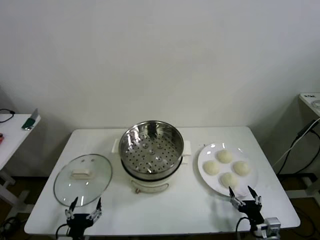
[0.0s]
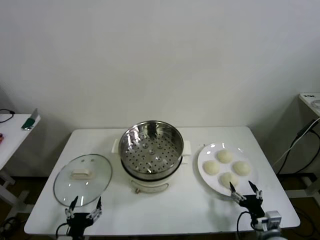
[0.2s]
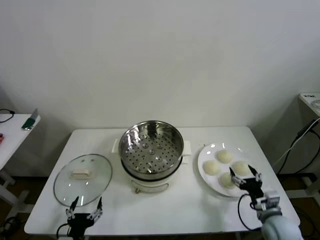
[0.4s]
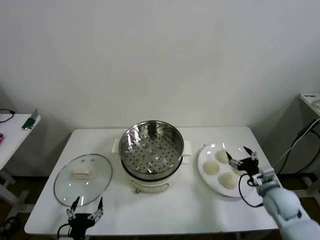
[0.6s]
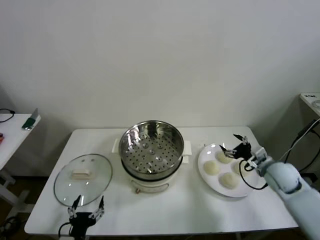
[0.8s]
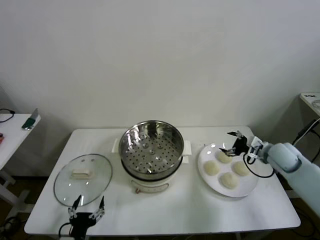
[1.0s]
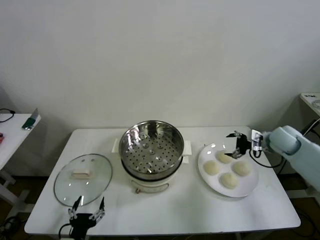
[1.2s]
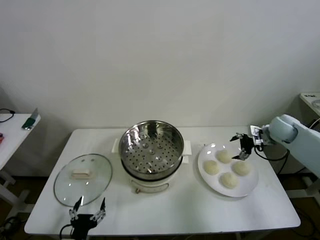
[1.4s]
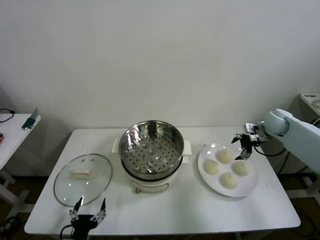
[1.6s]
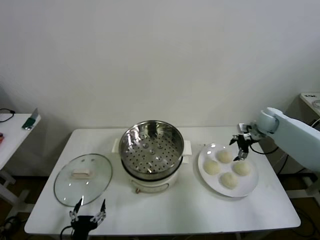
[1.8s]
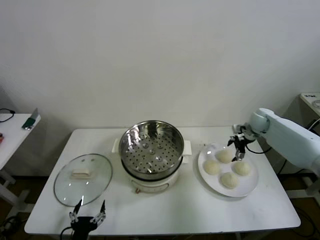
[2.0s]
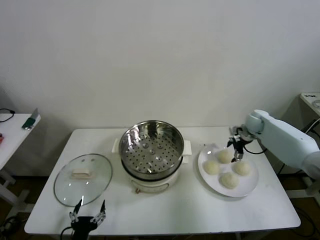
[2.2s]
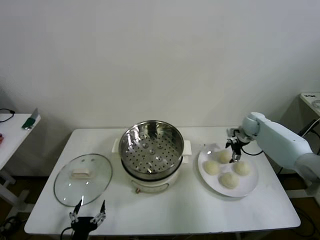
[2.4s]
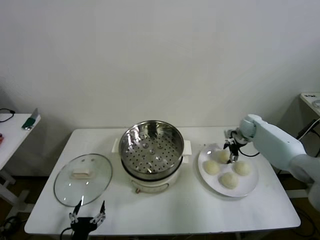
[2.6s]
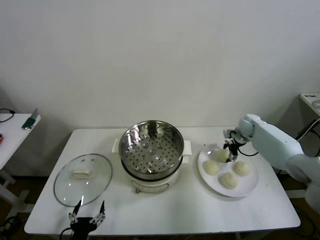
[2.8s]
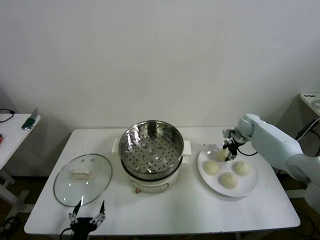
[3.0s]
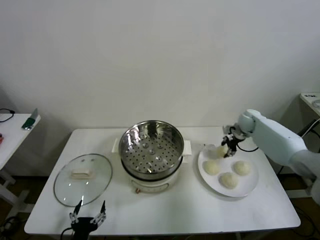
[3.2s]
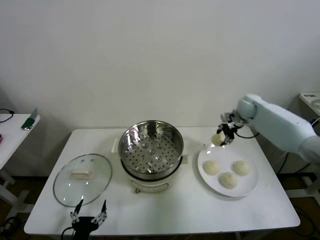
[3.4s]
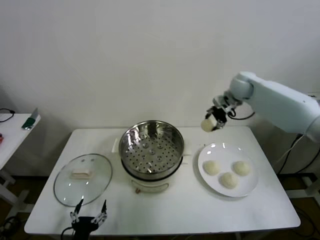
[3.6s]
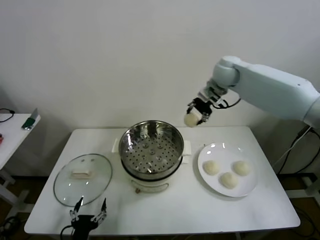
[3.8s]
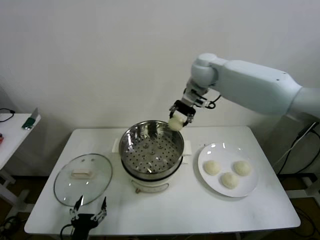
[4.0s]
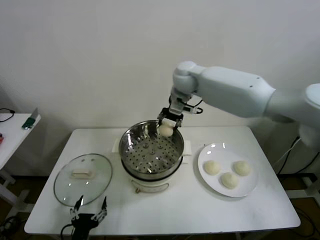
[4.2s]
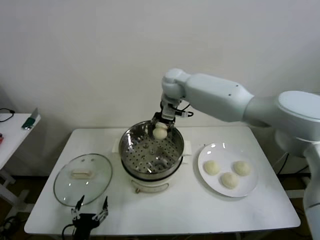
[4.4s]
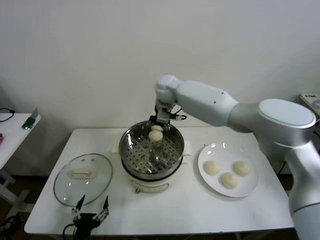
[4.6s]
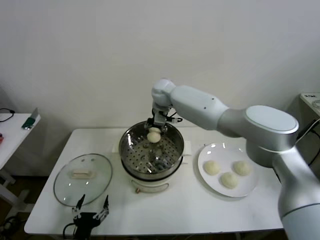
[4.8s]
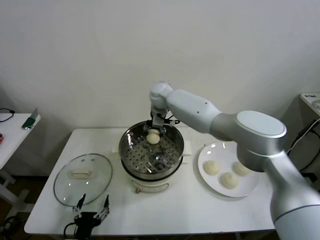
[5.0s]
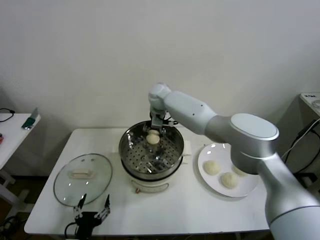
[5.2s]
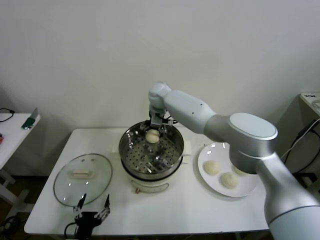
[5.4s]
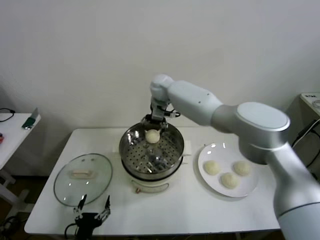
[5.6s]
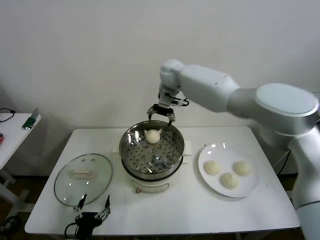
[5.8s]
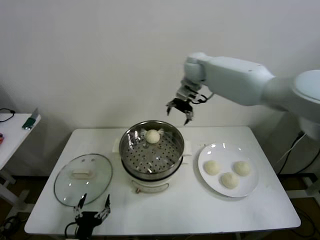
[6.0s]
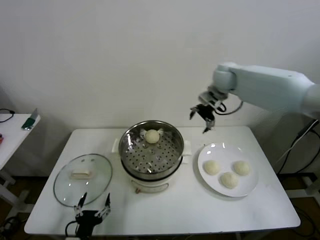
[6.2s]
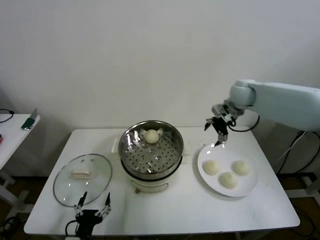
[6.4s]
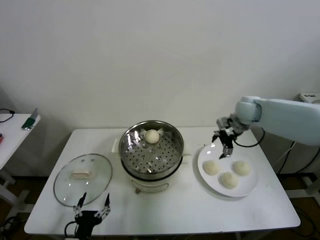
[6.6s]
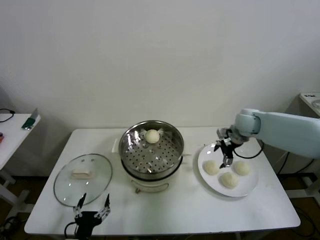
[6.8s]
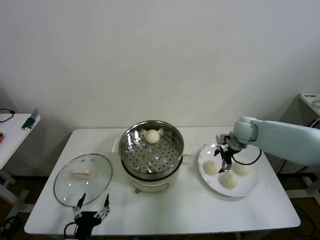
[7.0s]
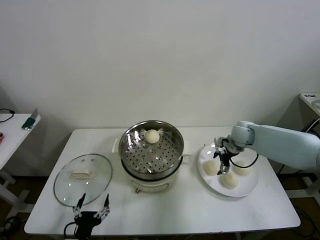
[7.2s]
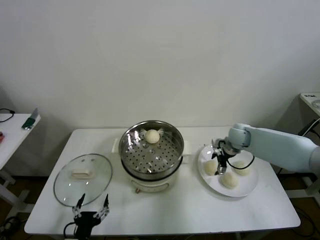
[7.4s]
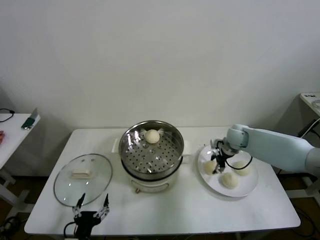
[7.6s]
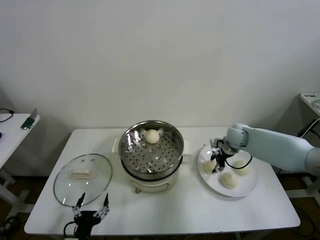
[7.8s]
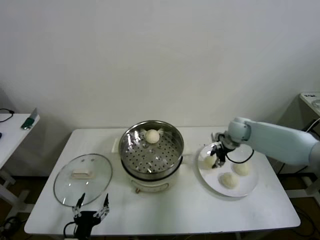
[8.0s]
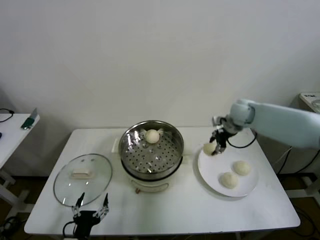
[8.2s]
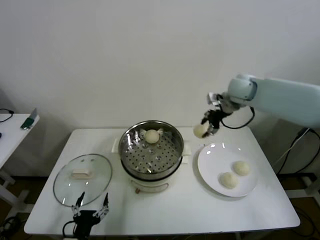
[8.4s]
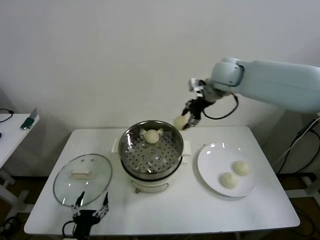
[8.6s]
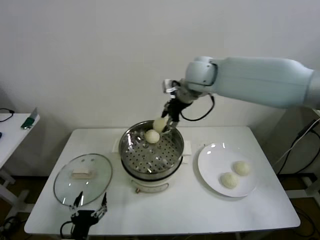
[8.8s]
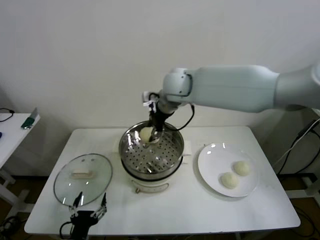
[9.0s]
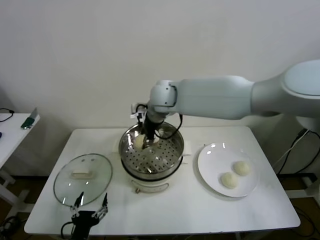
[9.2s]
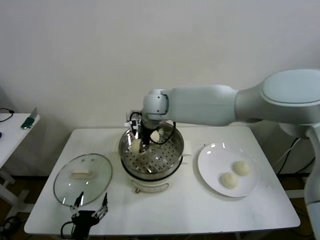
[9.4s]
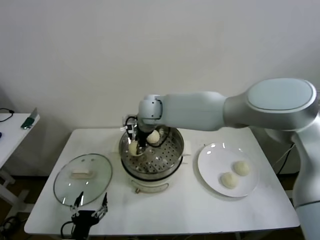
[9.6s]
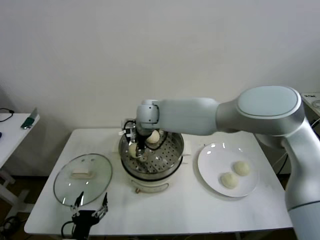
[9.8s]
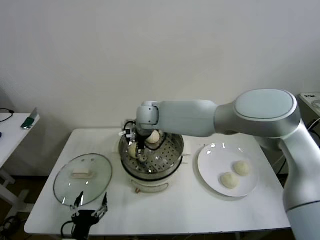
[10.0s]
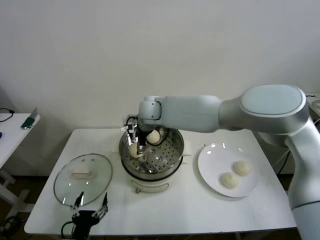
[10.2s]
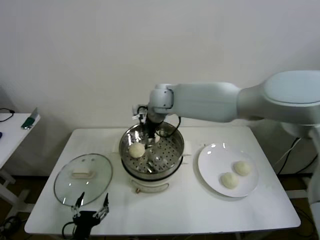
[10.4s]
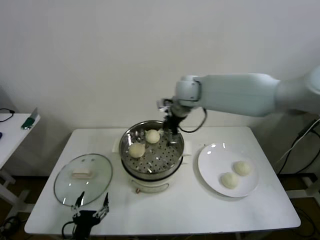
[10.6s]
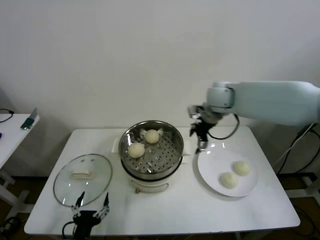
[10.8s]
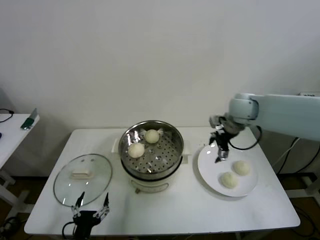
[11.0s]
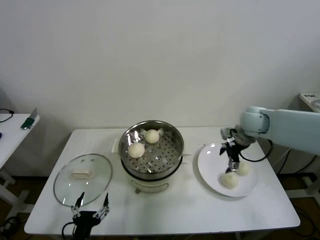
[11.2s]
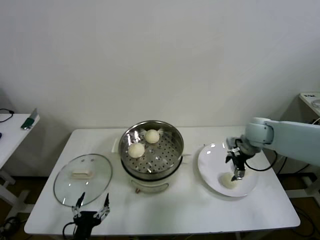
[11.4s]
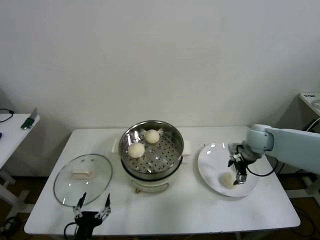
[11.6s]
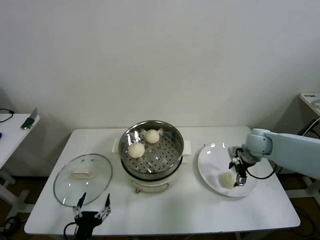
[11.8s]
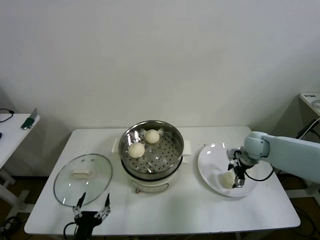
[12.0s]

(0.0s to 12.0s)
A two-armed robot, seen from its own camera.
Step, 0.0s - 2.8s: Grasp the baozi in the plate with right gripper.
Step, 3.0s - 5.2s: Place the baozi on the steamer with right gripper.
Step, 5.6s - 7.6s: Grasp the baozi in the plate with right gripper.
Step, 7.8s - 10.0s: Place the baozi on the steamer with right gripper.
1.6s - 3.0s: The right gripper goes some 10 cm downward and forward, and closes its fingers.
3.0s - 4.4s: The right gripper goes approximately 40 cm to the left and upward.
4.4s - 6.0s: The right gripper heads to the right, covering approximately 15 cm, and opens up.
6.0s - 7.6s: The right gripper is displaced downward and to the right by approximately 25 cm, and closes its fingers.
7.6s - 9.0s: The right gripper heads to the left and upward, covering approximately 35 cm.
9.0s - 10.4s: The right gripper travels downward and back again, some 10 cm each way, and opens up.
10.4s - 12.0s: The right gripper heads to the right and downward, covering some 35 cm.

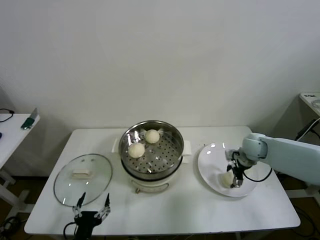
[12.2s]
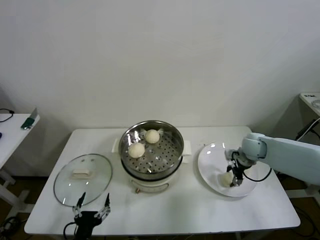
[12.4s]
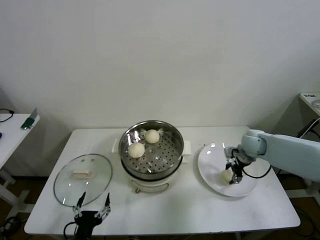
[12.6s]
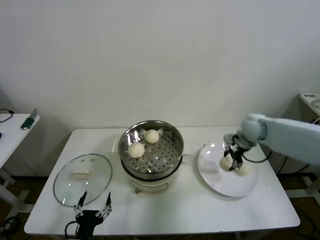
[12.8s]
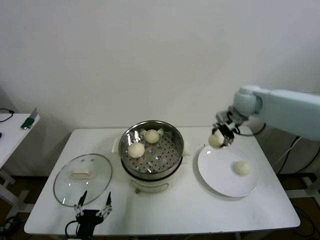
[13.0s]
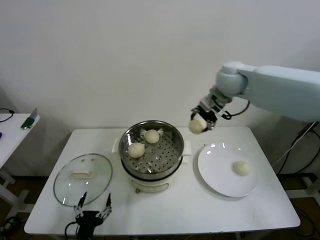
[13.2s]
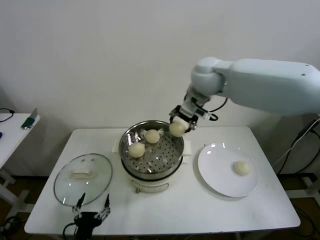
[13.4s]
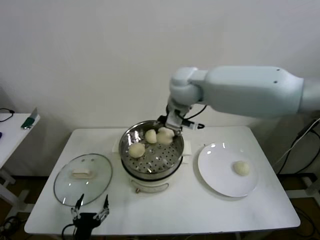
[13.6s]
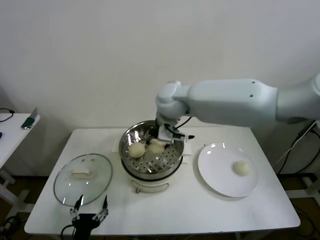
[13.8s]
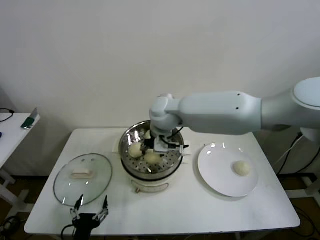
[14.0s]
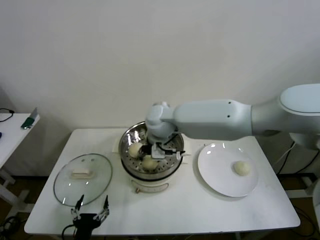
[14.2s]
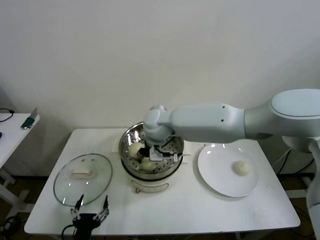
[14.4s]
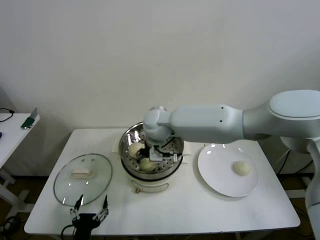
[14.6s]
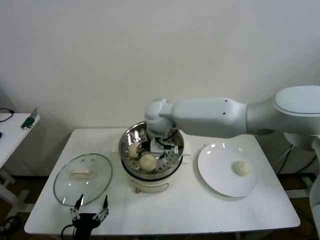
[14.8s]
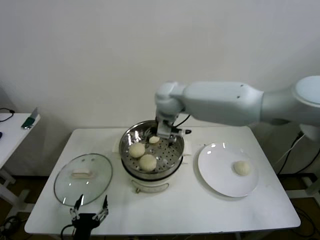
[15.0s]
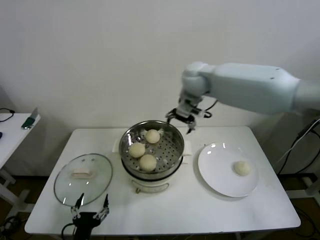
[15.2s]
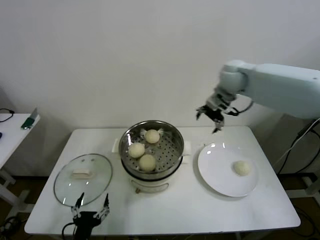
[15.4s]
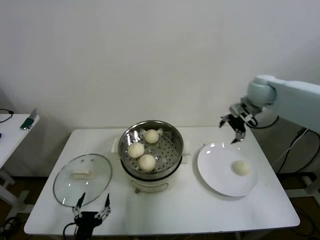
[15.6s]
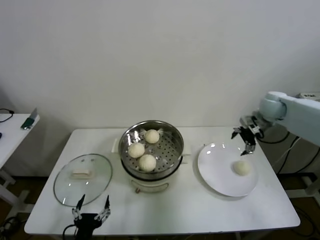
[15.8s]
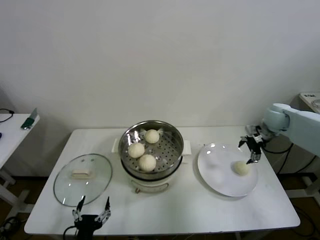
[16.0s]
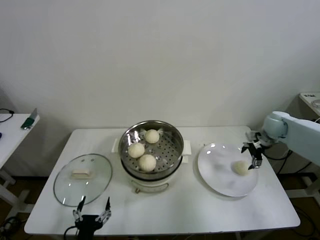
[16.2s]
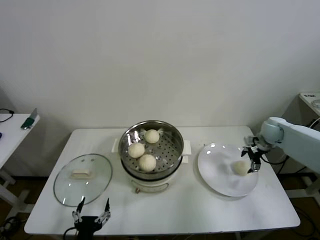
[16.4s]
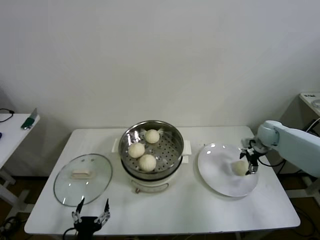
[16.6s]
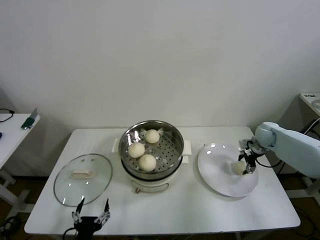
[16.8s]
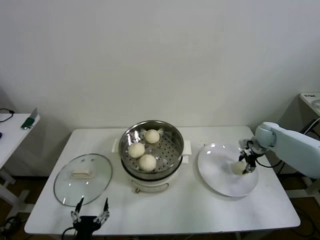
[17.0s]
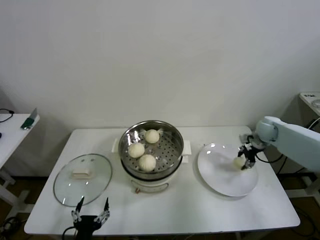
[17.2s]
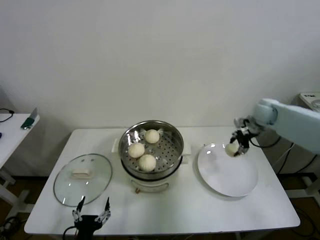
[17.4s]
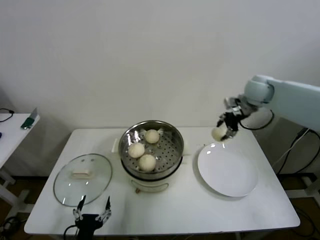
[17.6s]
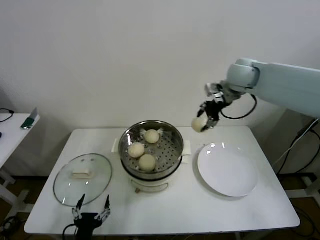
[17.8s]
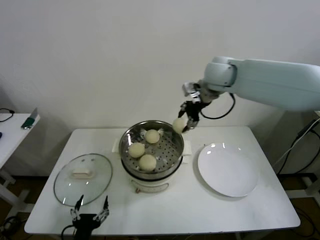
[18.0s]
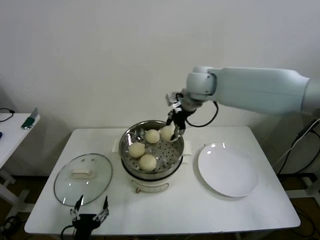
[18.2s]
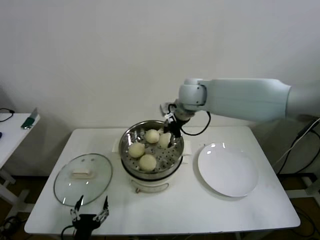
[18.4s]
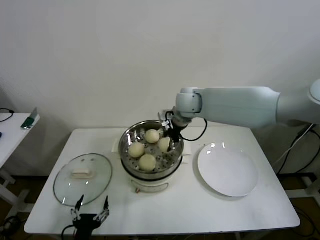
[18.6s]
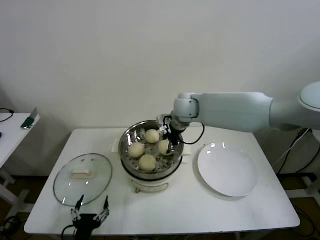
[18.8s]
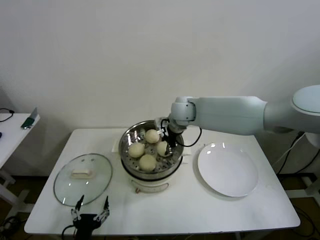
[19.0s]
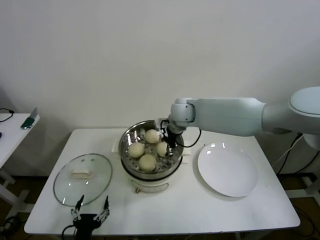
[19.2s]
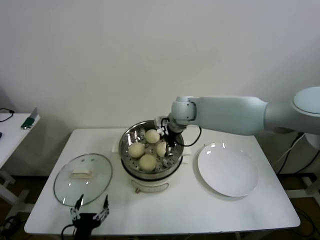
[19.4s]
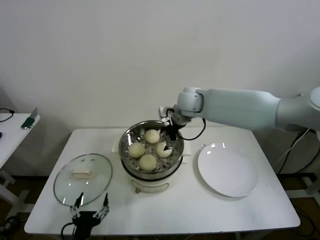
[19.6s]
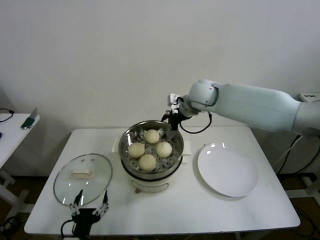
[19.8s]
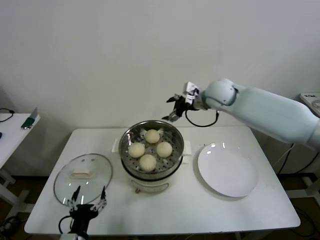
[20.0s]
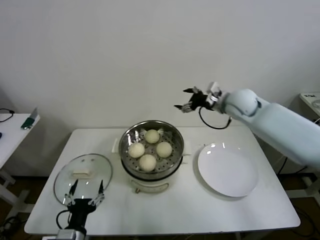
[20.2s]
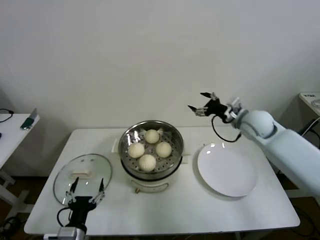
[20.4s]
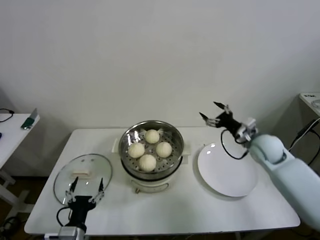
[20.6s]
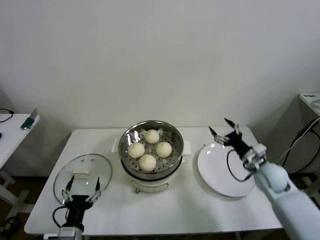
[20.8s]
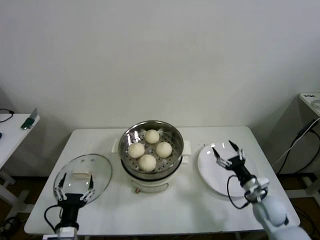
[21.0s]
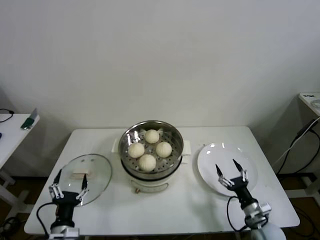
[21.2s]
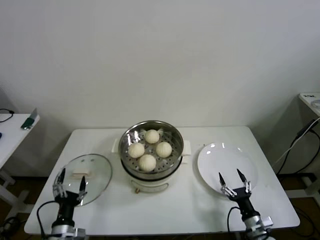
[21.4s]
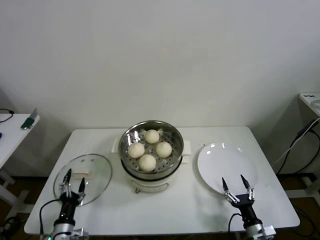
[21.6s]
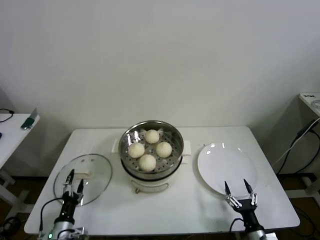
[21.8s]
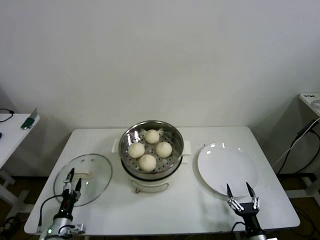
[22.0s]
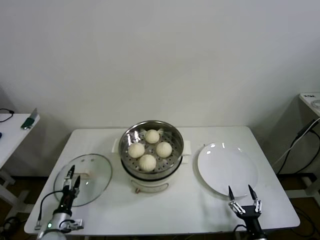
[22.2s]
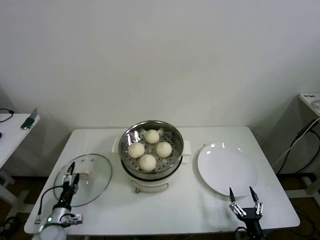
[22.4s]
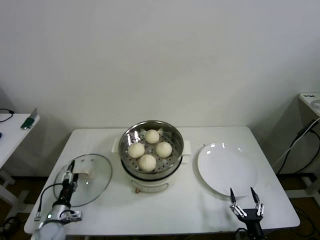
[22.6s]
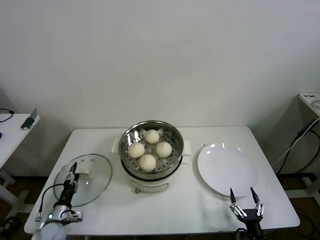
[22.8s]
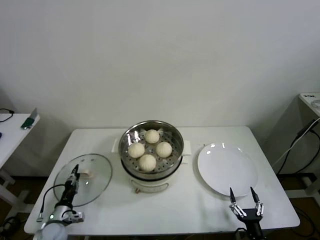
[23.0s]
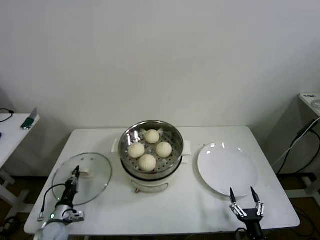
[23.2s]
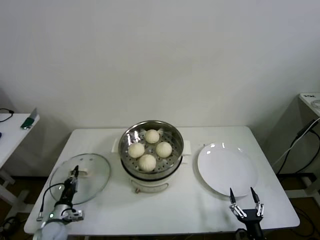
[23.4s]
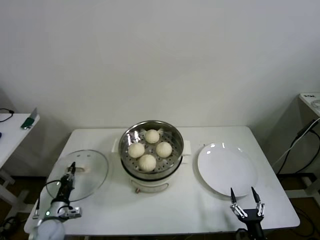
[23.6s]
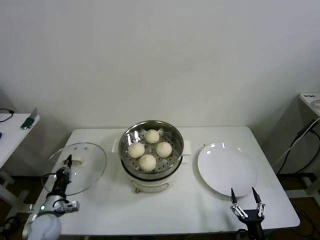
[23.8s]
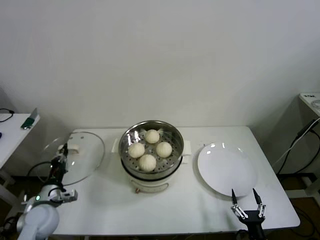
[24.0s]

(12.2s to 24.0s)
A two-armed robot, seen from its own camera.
Step, 12.6s - 14.4s: Place the baozi on the steamer with right gripper.
Step, 14.6s - 16.8s: Grasp the baozi in the plate with right gripper.
Step, 17.0s - 19.0s: Place the baozi on the steamer with right gripper.
Step, 19.4s - 23.2s: Grasp the pot lid with left gripper.
12.2s - 13.6s: The right gripper goes about 40 cm to the left and upward.
13.6s - 15.2s: The right gripper moves to the right and forward, some 10 cm, and opens its fingers.
15.2s - 16.6s: The right gripper moves to the right and downward, approximately 40 cm.
16.6s - 18.2s: The right gripper shifts roughly 40 cm to the left and upward, and closes up.
18.2s - 19.6s: The right gripper travels downward by roughly 5 cm, and opens its fingers.
19.6s - 21.0s: The right gripper shifts about 50 cm downward, to the right and backward; the left gripper moves roughly 5 cm.
21.0s - 22.6s: The left gripper travels to the left, downward and forward by roughly 20 cm, while the right gripper travels backward and downward by approximately 20 cm.
22.6s - 24.0s: The left gripper moves upward, approximately 10 cm, and closes up.
